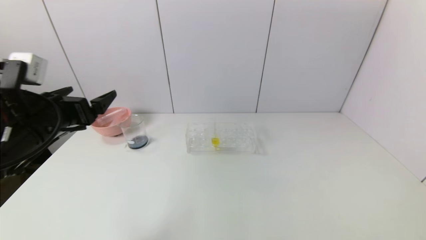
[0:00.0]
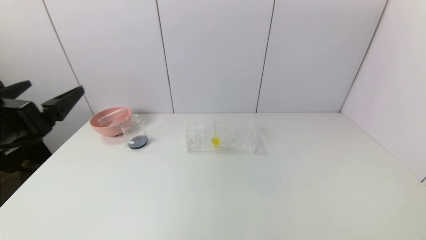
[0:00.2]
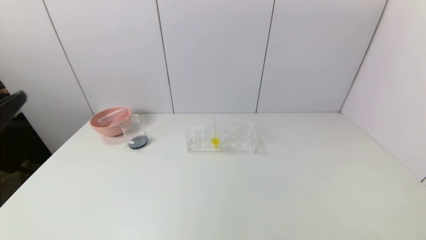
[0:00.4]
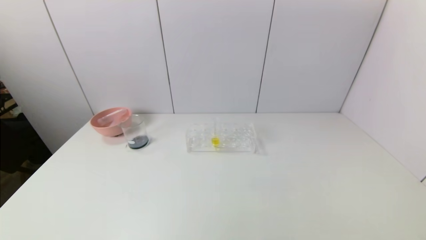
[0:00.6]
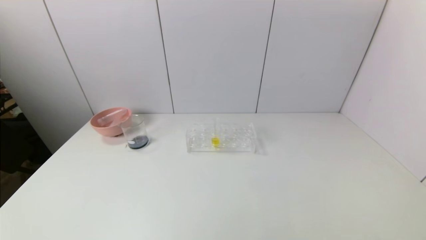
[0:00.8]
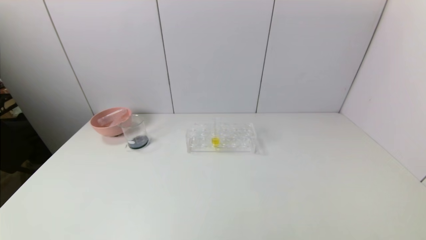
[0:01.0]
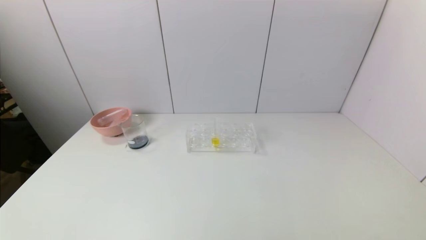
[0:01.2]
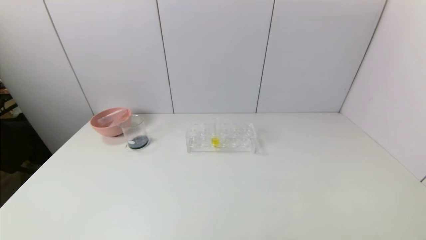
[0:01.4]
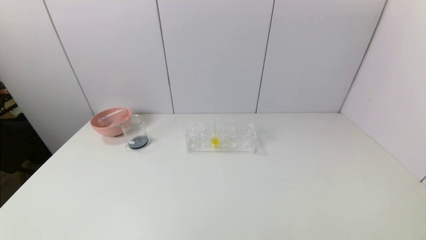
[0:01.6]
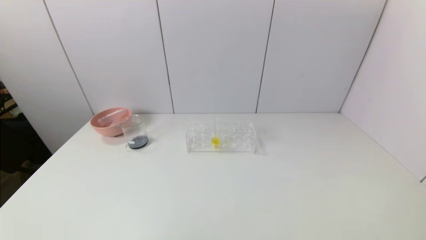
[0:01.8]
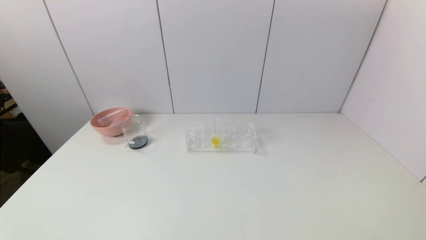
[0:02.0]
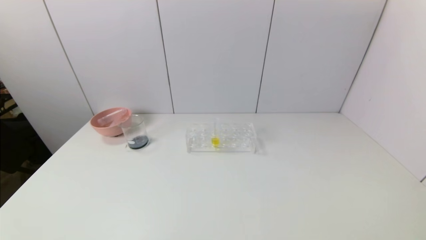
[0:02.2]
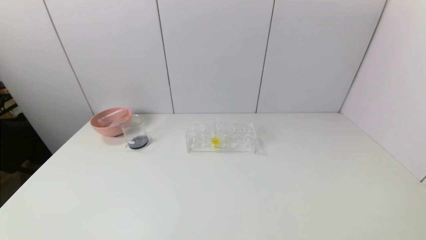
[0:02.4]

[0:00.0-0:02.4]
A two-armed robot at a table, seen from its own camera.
Task of the whole recording: pick up the test tube with red pigment and the test tube with blue pigment by grippers and pour them into the container.
0:00.0 to 0:01.2: The left gripper shifts some 30 cm backward.
0:01.2 to 0:02.4: The left gripper goes some 20 cm downward.
